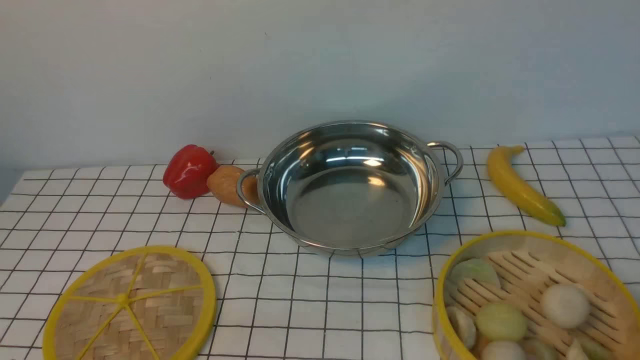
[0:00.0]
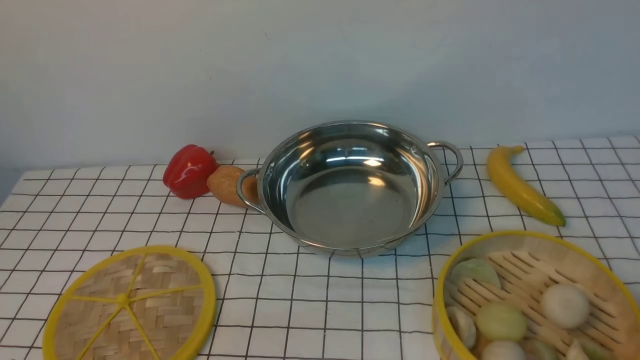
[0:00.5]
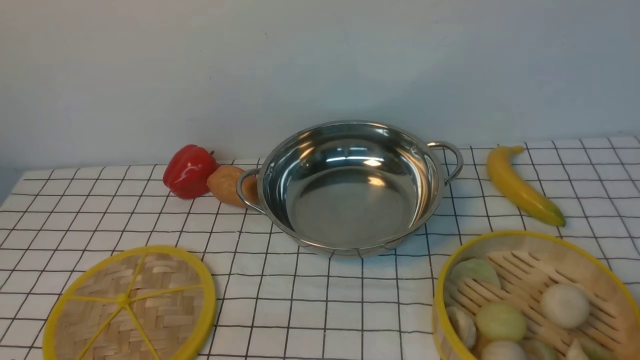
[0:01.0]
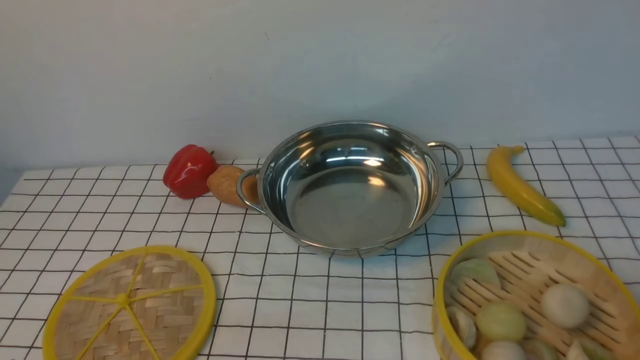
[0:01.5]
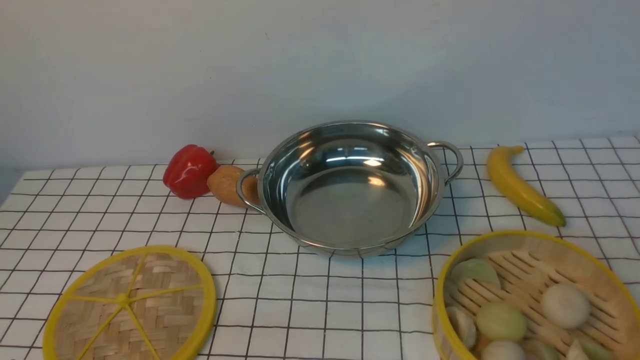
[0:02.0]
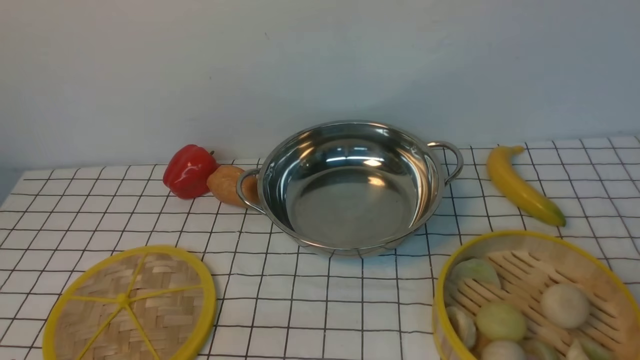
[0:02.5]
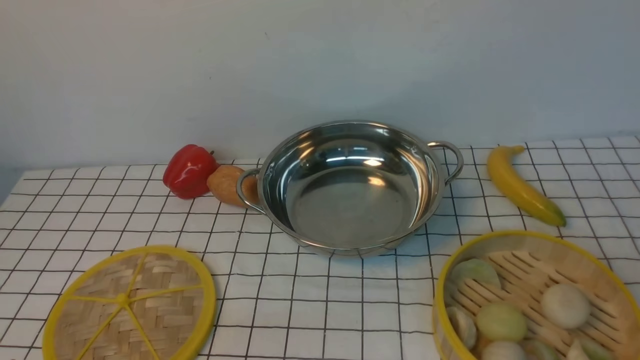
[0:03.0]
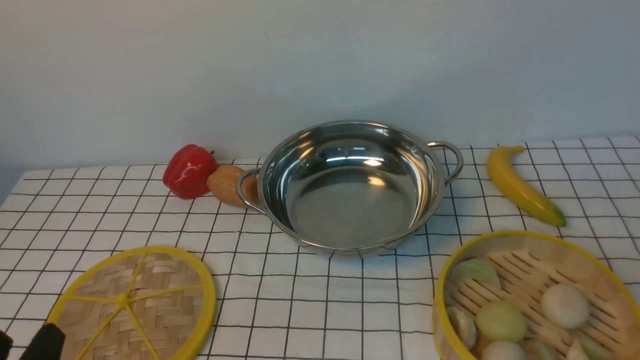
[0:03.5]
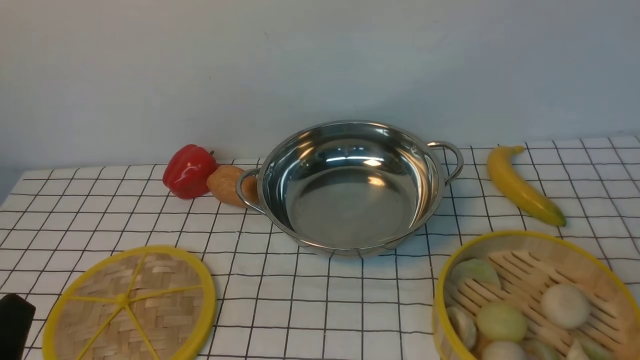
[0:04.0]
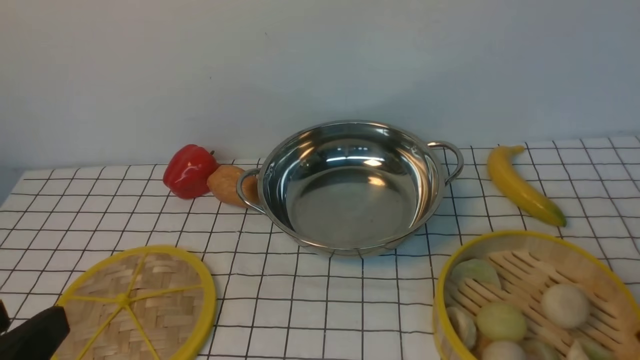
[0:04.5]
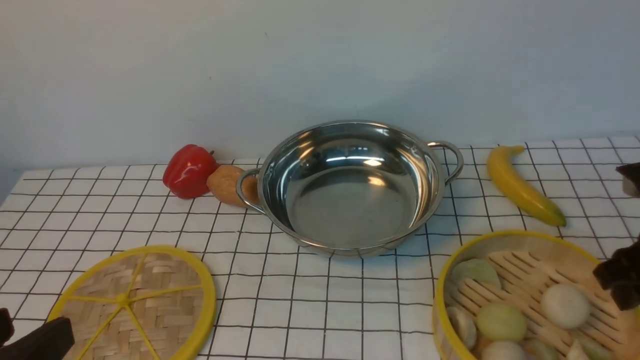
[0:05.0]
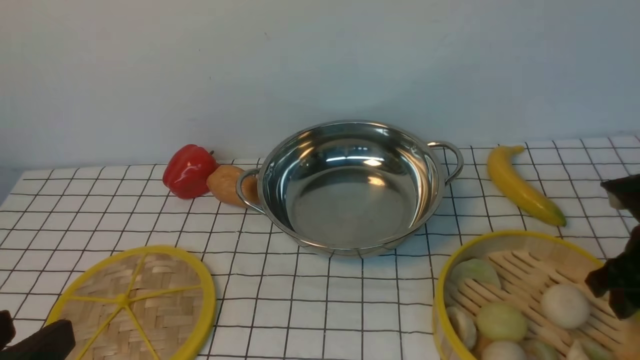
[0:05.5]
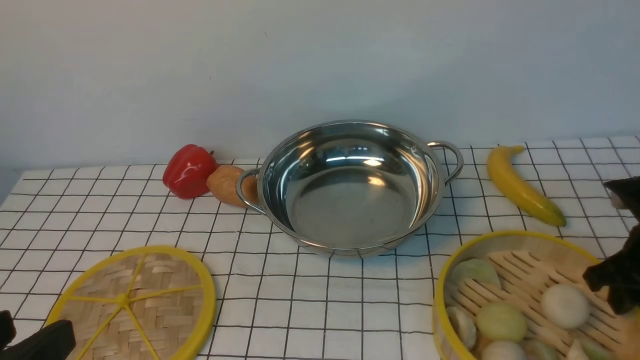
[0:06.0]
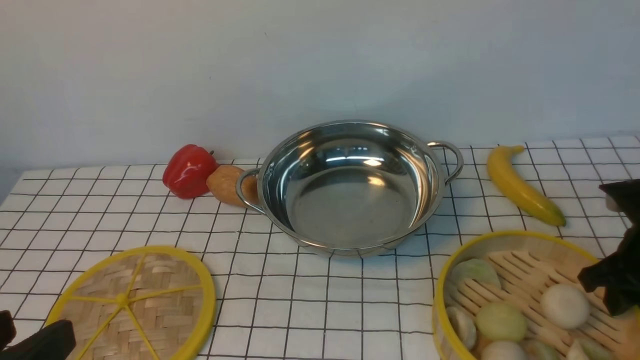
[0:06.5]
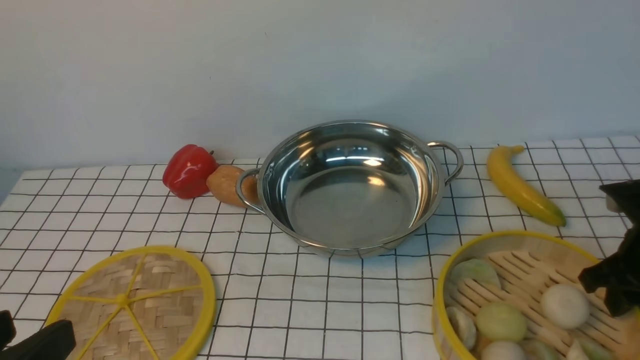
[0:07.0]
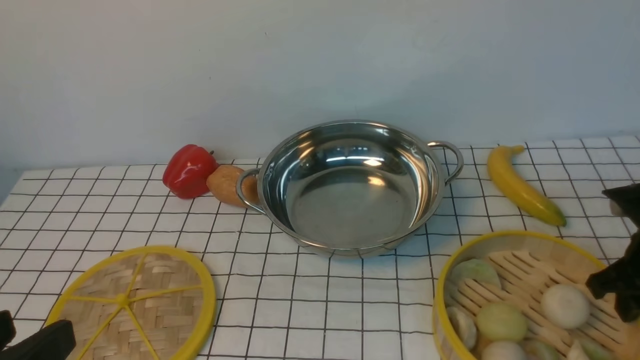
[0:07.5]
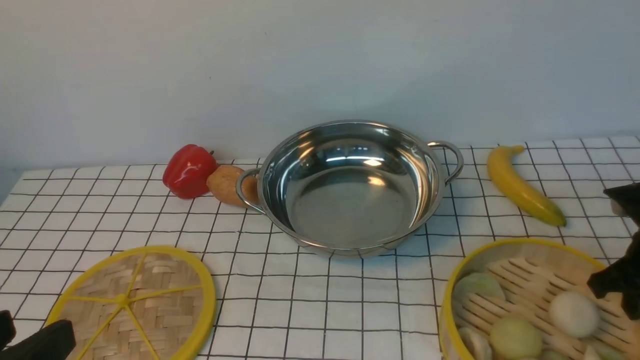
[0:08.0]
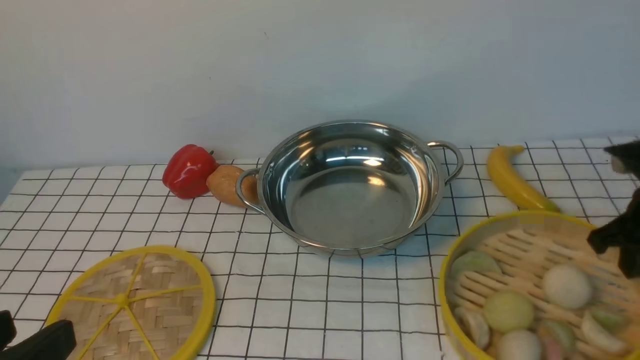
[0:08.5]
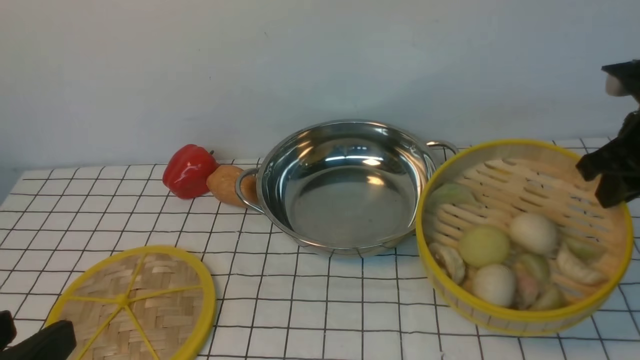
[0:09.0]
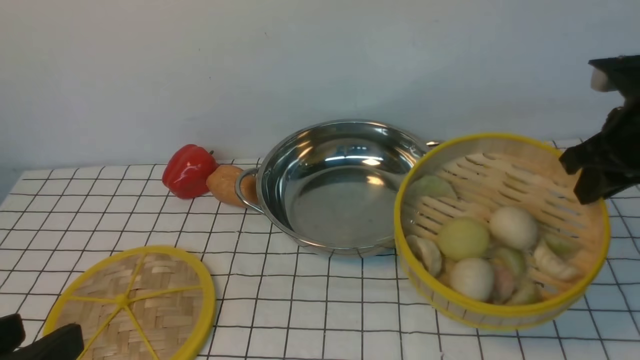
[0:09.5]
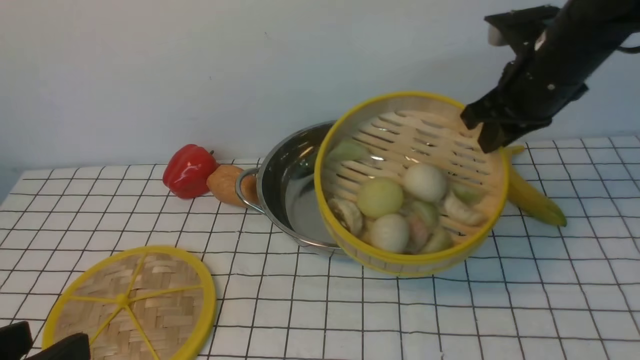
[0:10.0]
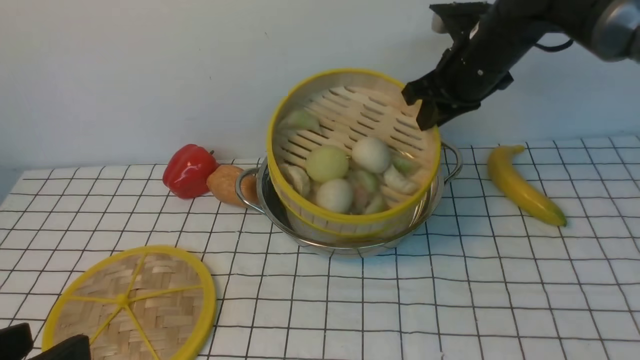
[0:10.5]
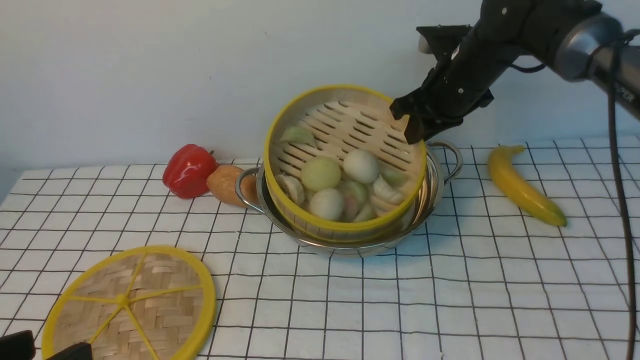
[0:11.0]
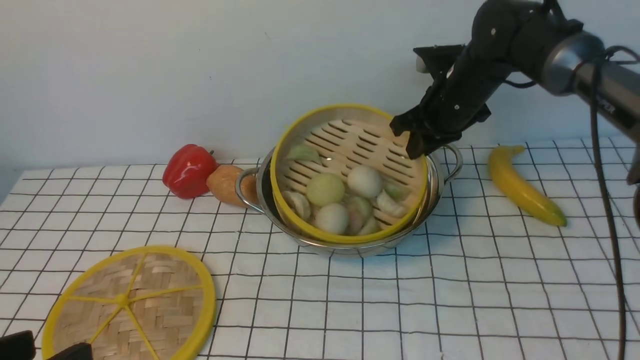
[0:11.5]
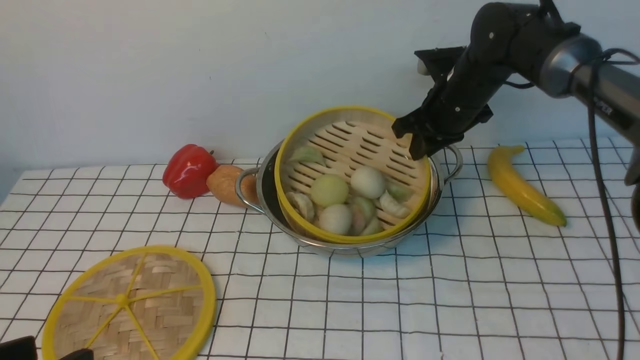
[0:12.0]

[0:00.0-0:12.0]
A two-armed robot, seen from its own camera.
Task of the whole recording: place the steamer in the pot on the white tablecloth, and put the lid on the steamer.
Step, 0:00.0 to 0:08.5: use the right arm to lift the steamer closest to it.
0:02.0 to 0:04.0: The left gripper travels upward by some 5 cm.
0:04.0 to 0:06.0: The right gripper heads forward and downward, covering about 15 cm; the left gripper goes approximately 5 cm upward.
0:06.0 to 0:08.0: The right gripper closes.
0:08.0 to 0:10.0: The right gripper shifts roughly 20 cm upward, forward and to the left.
0:10.0 to 0:12.0: The right gripper moves forward, downward and to the left, some 15 cm.

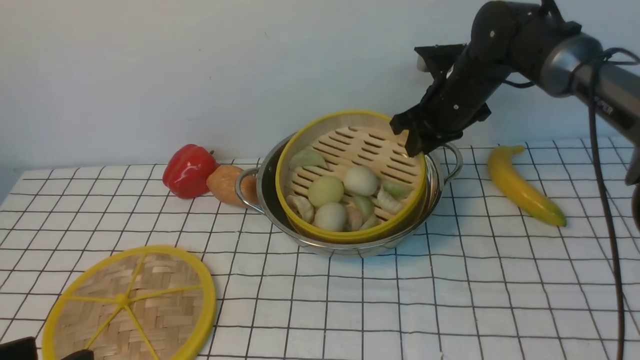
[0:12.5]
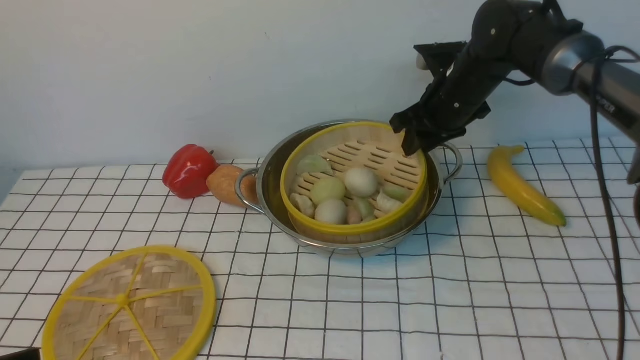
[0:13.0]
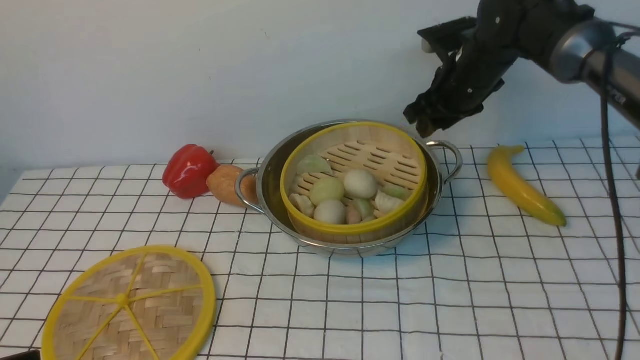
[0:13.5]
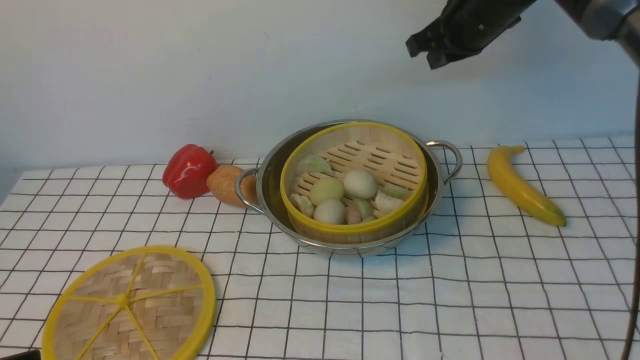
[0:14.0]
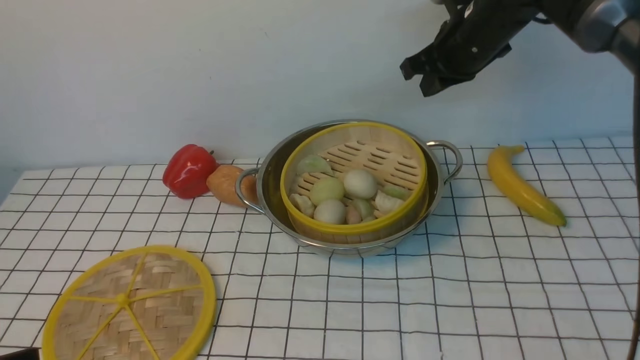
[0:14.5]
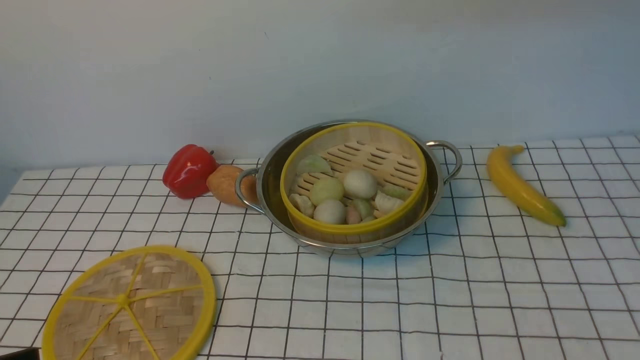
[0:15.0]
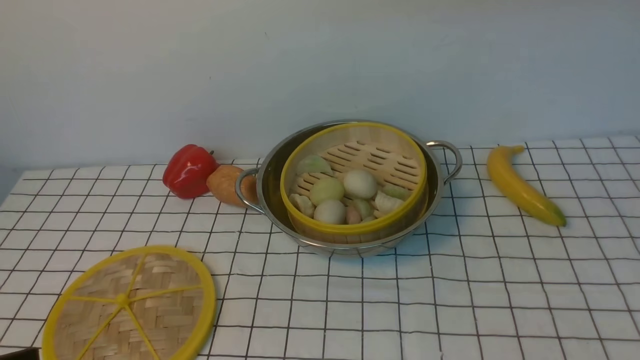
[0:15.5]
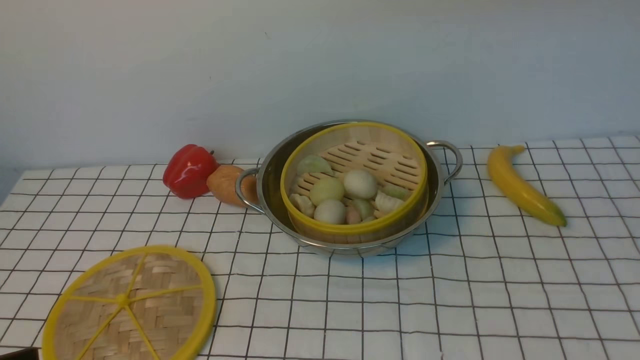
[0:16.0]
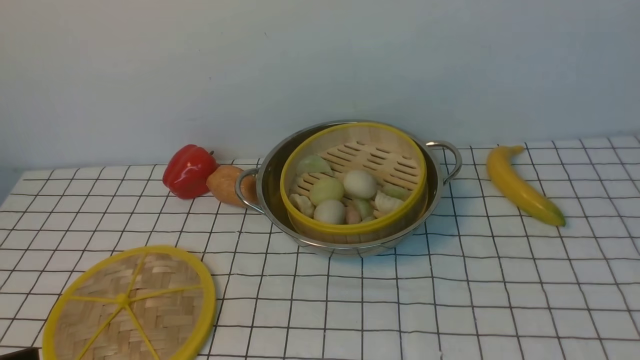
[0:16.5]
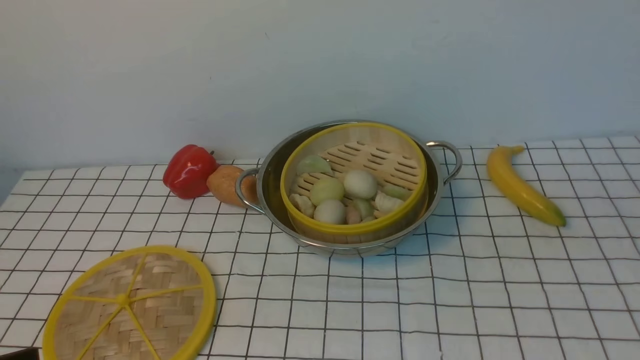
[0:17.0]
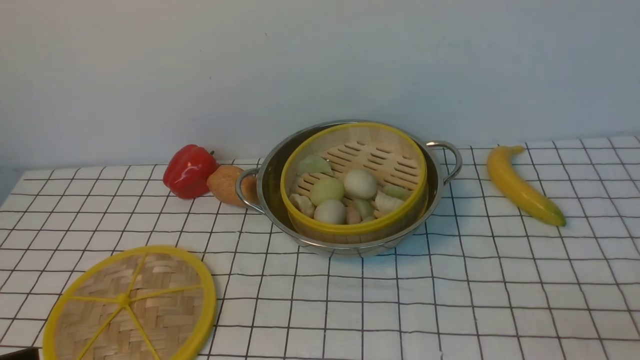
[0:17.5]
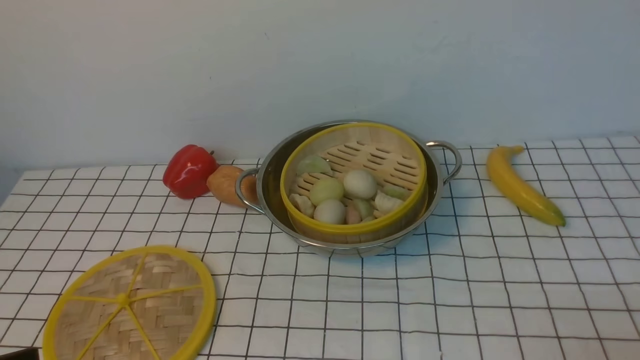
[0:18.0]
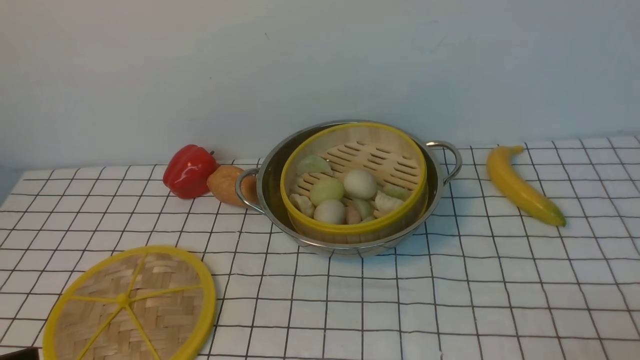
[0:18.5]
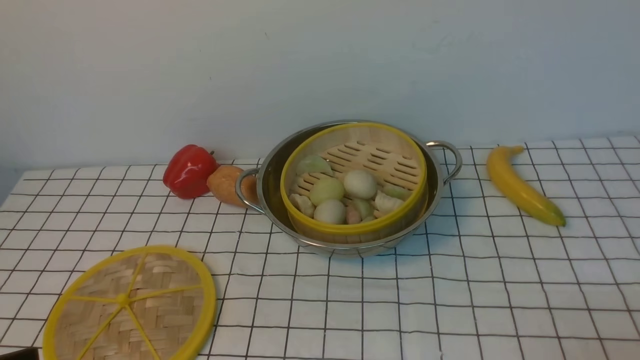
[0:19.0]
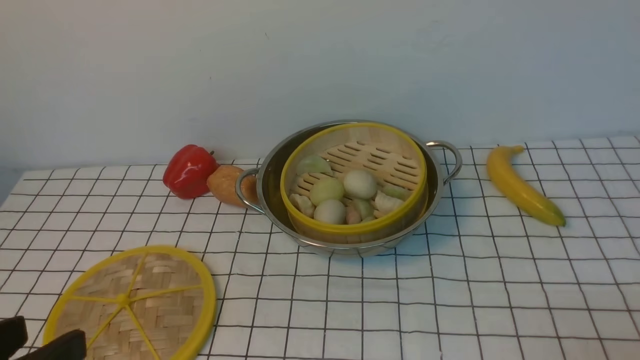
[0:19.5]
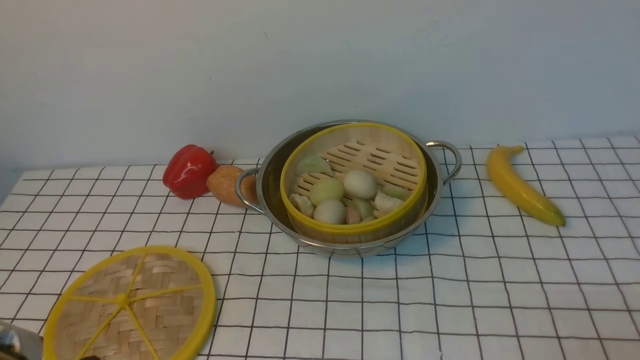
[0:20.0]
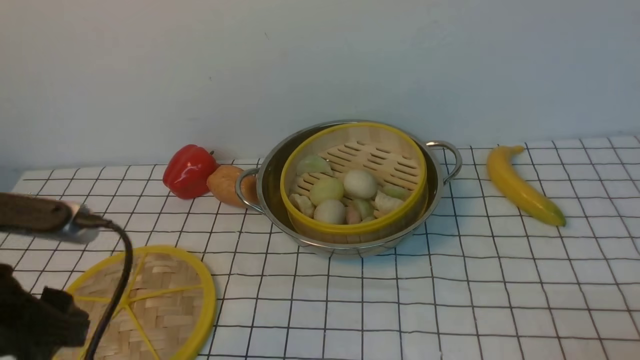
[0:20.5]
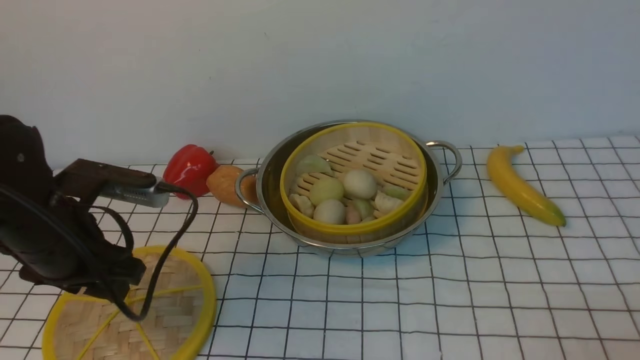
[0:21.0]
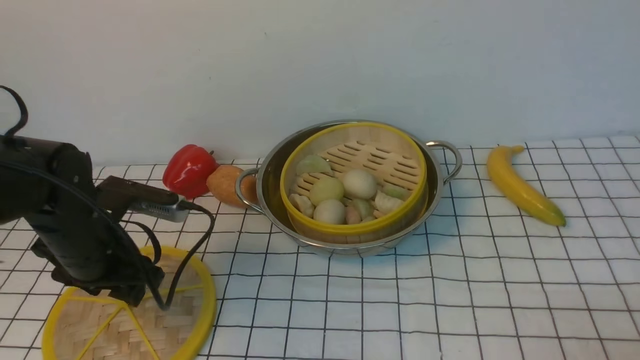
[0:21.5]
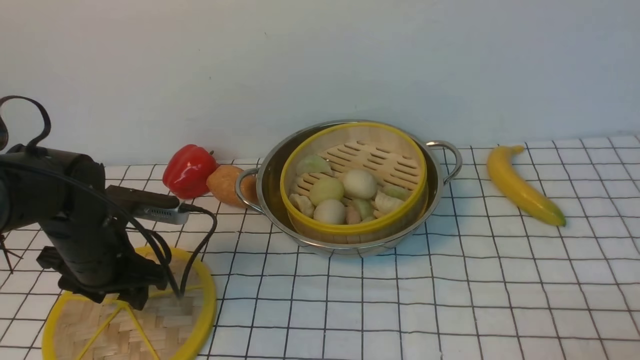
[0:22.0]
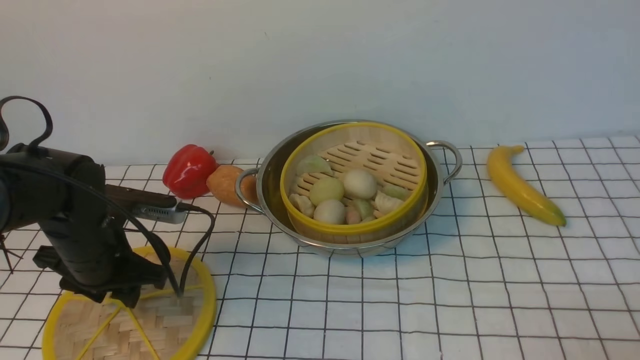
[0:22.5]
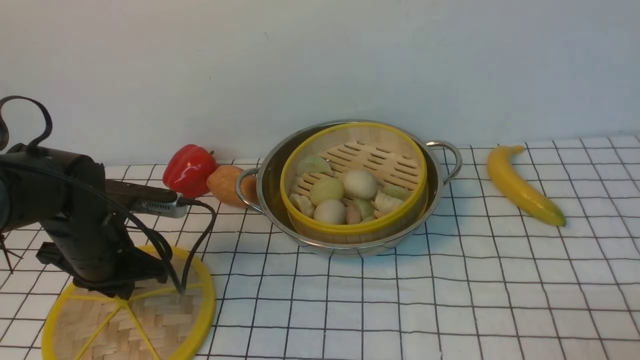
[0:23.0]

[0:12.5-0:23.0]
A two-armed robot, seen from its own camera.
Task of the whole recording: place the steamer in the pot on the white tablecloth, and put the lid on the steamer.
0:12.5 to 0:14.5: The right gripper heads upward, covering about 10 cm, and closes up.
0:14.5 to 0:16.5: The right gripper goes some 35 cm backward and upward.
0:19.0 to 0:21.0: The left gripper heads forward, covering roughly 25 cm.
0:21.0 to 0:23.0: The left gripper heads downward, covering roughly 5 cm, and closes.
